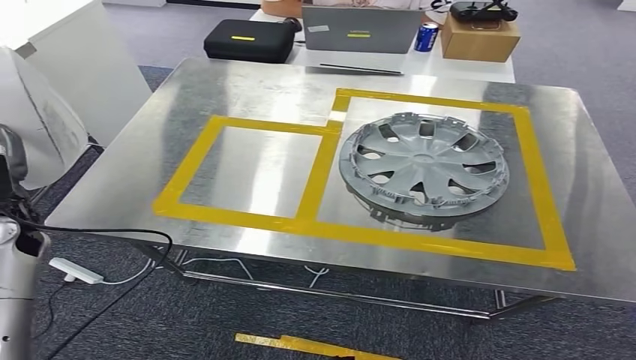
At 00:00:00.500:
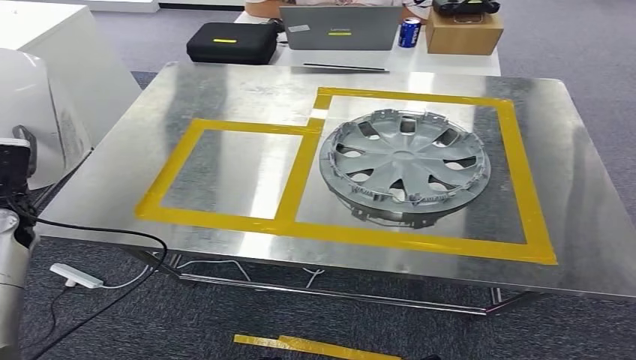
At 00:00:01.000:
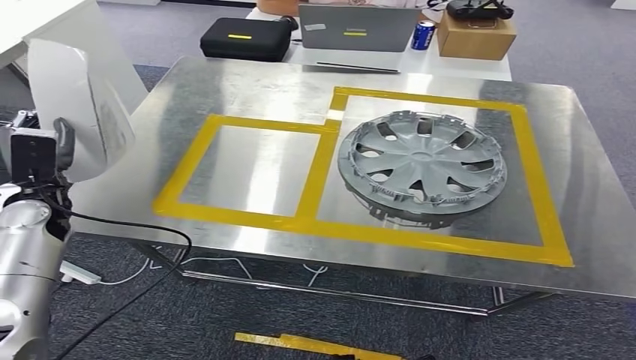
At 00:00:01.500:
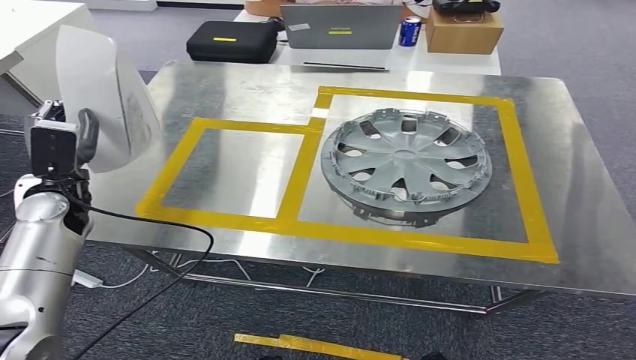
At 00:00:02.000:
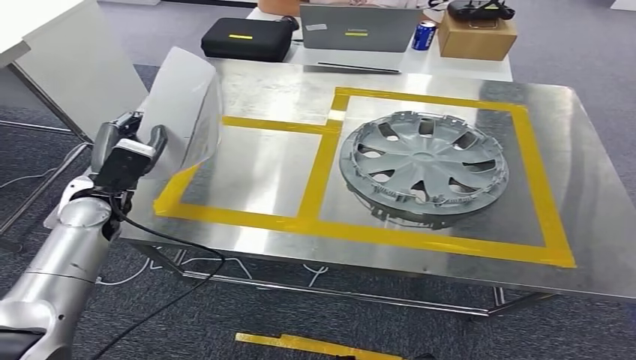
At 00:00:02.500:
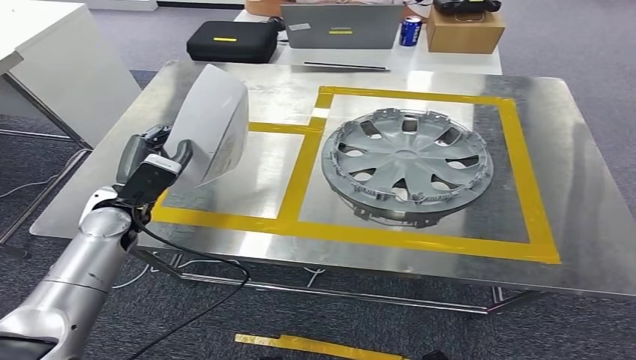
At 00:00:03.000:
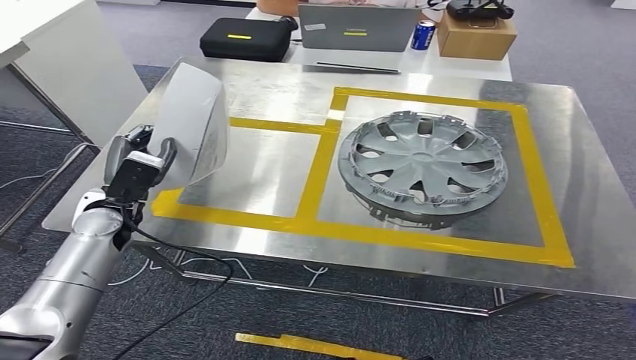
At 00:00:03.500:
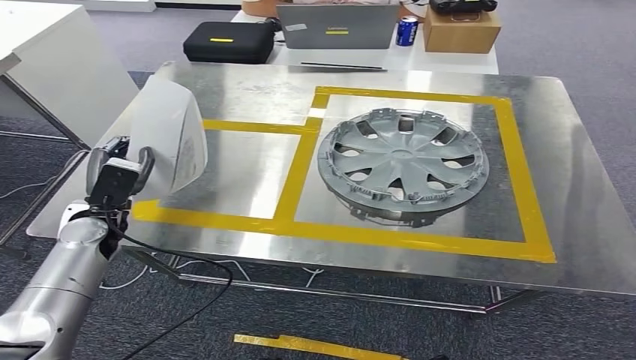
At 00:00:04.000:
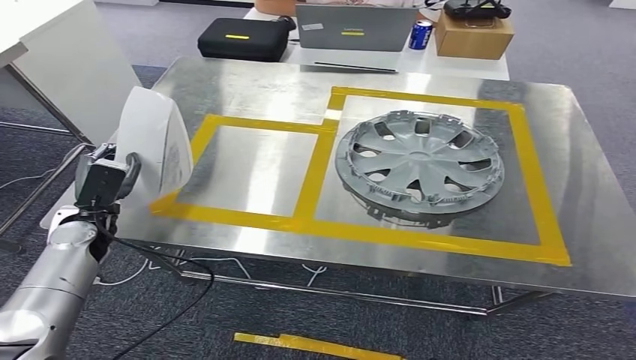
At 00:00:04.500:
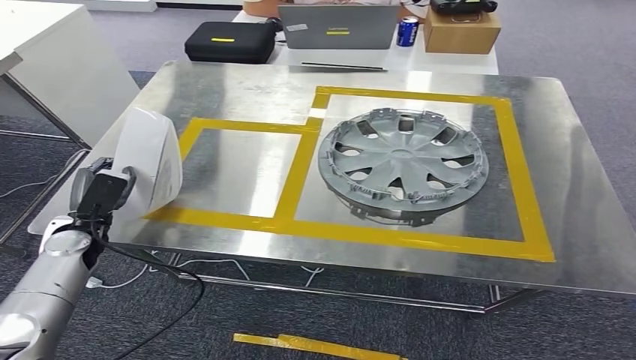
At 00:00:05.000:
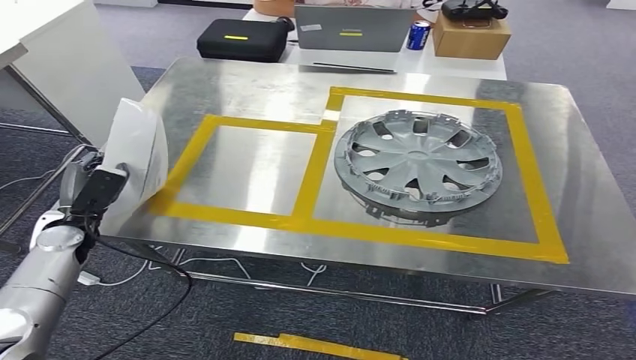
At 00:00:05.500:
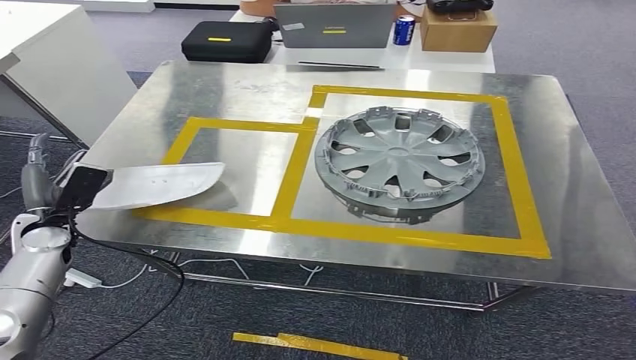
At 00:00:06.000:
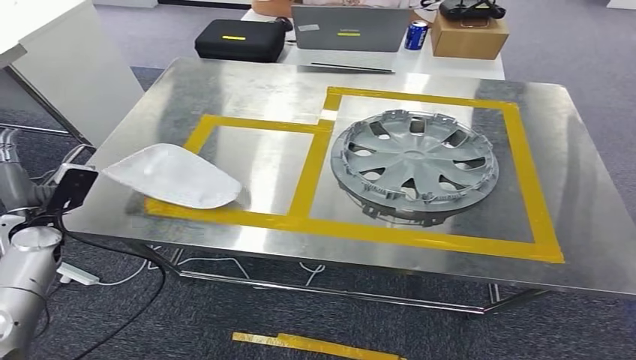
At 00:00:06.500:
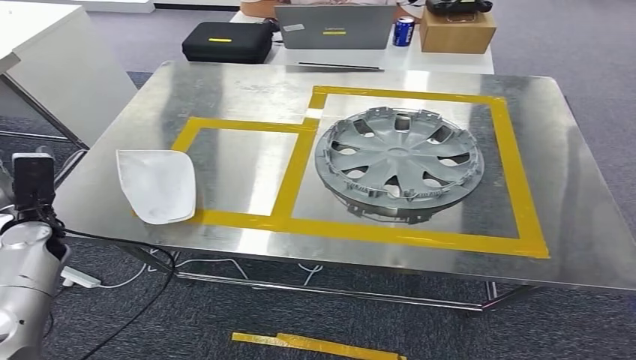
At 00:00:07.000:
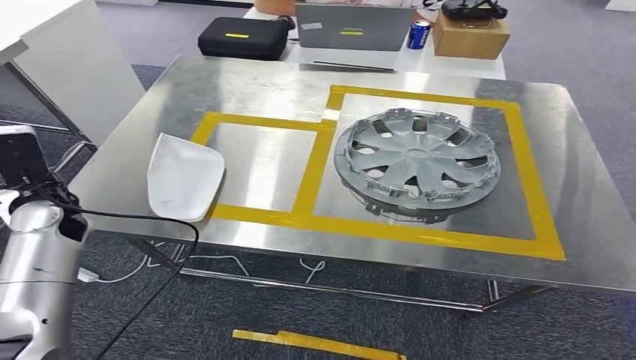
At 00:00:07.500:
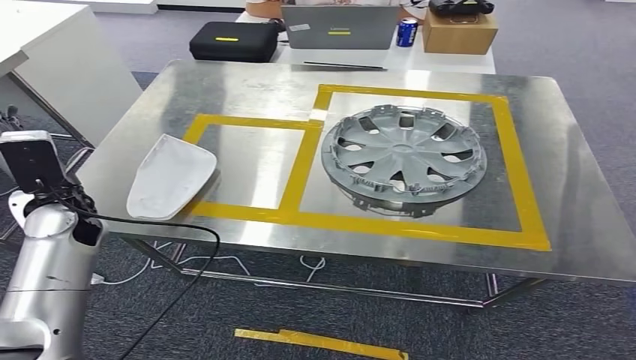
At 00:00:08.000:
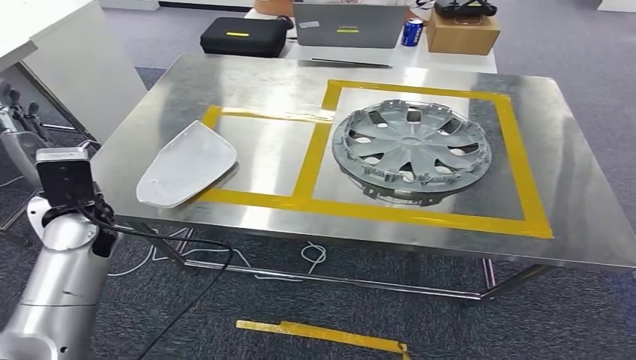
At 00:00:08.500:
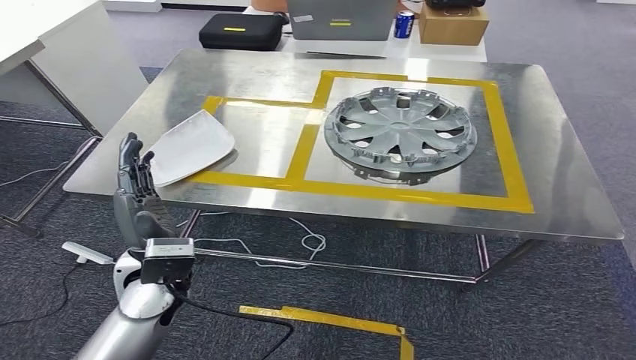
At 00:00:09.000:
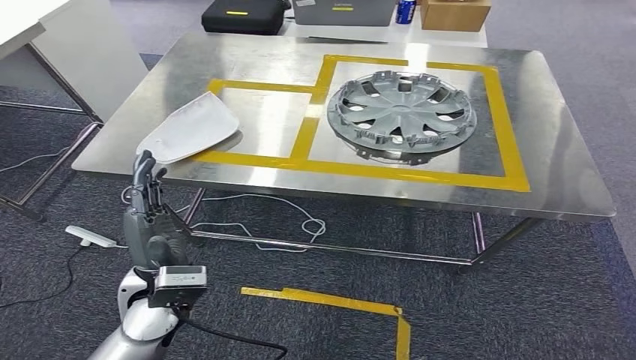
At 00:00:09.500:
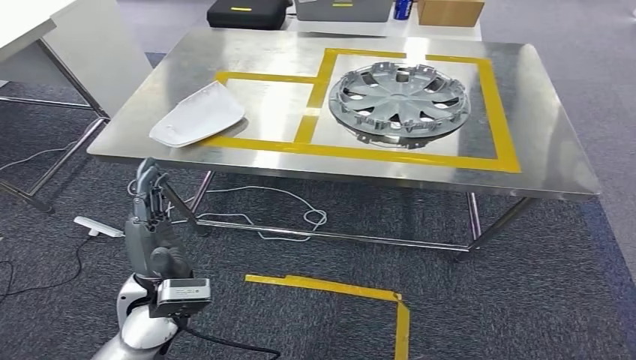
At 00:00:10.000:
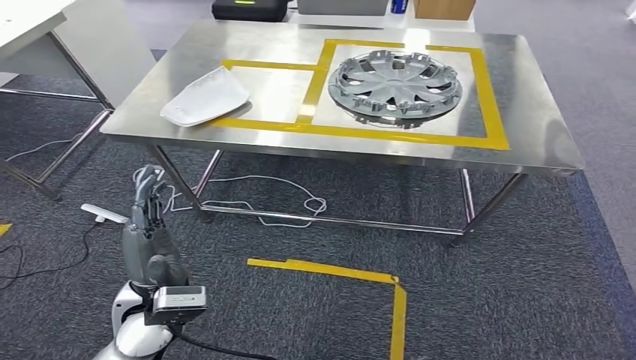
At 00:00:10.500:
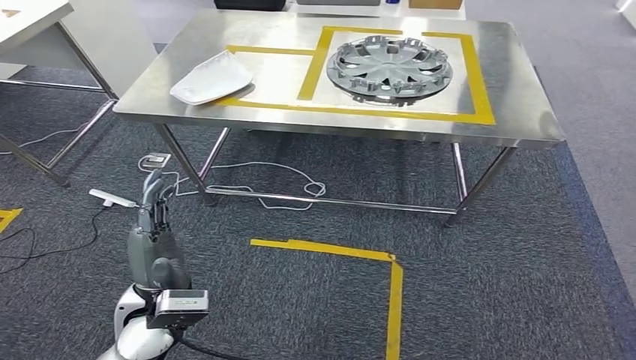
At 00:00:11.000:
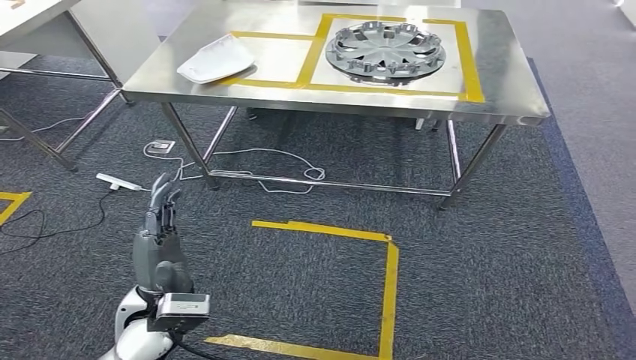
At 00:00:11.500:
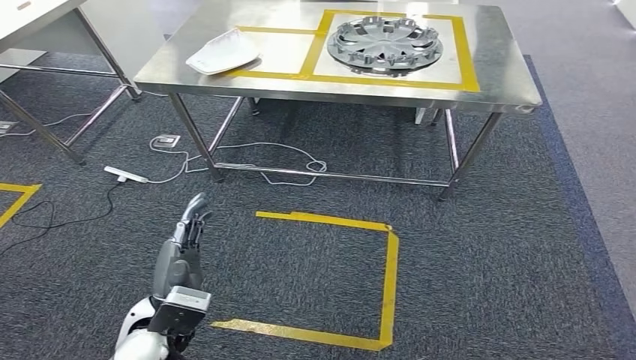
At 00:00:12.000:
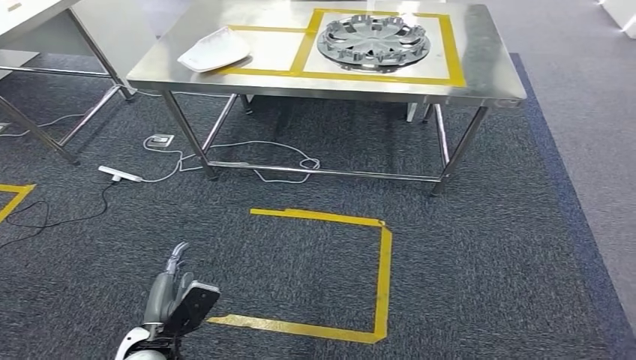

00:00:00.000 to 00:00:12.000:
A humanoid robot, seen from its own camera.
Step, 00:00:00.000 to 00:00:08.000: Insert the small component into the corresponding slot on the workbench.
00:00:02.000 to 00:00:04.000: The left hand goes approximately 5 cm downward.
00:00:04.000 to 00:00:06.000: The left hand shifts approximately 10 cm to the left.

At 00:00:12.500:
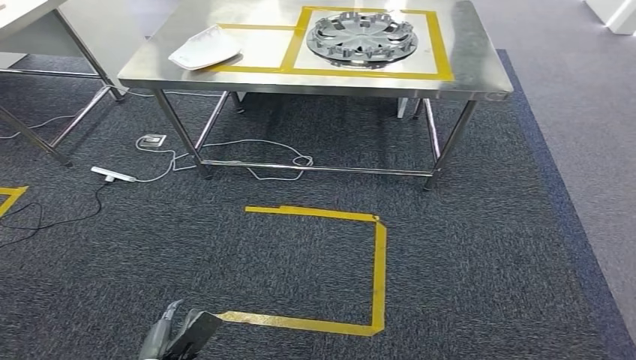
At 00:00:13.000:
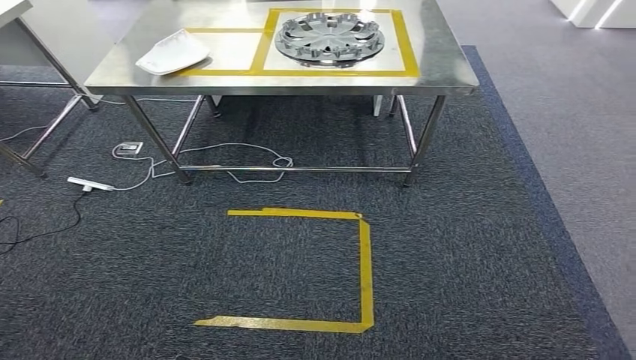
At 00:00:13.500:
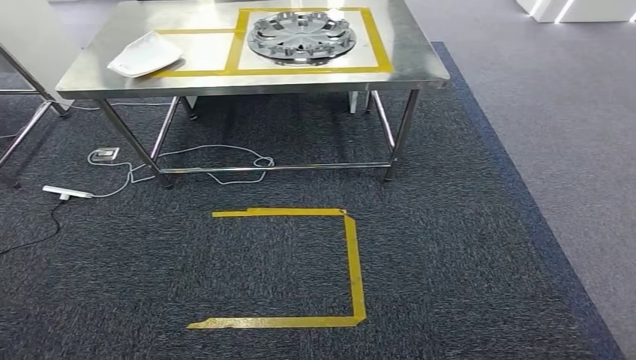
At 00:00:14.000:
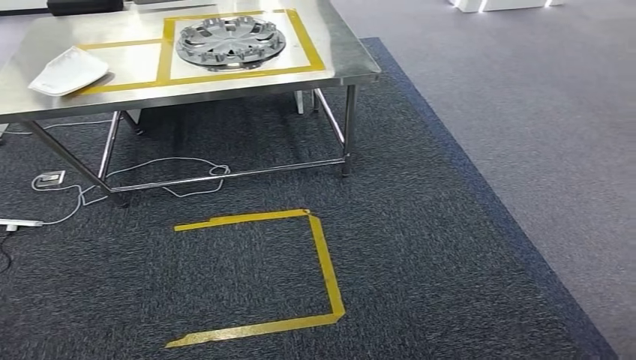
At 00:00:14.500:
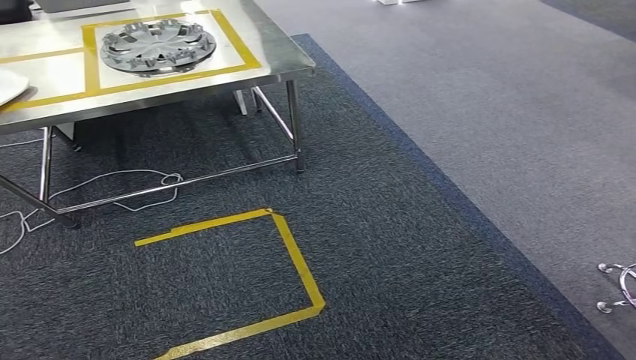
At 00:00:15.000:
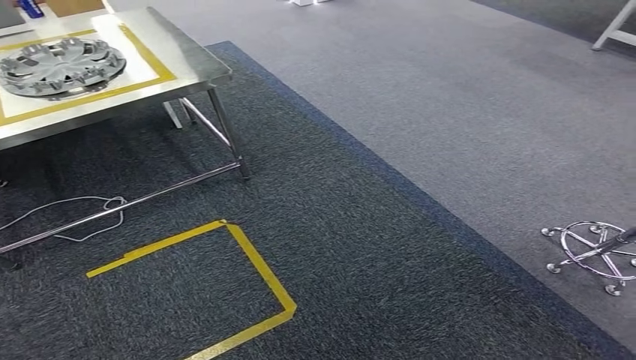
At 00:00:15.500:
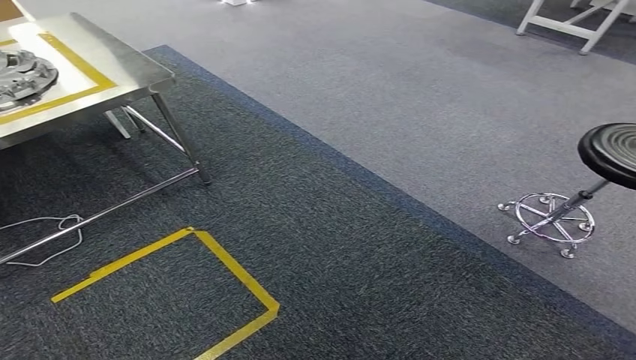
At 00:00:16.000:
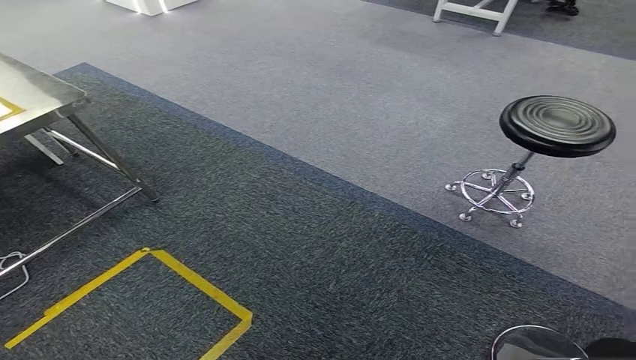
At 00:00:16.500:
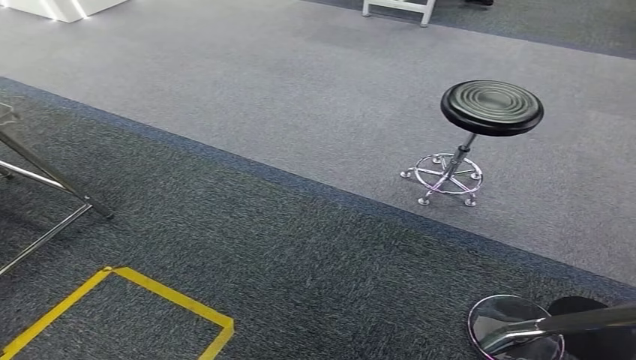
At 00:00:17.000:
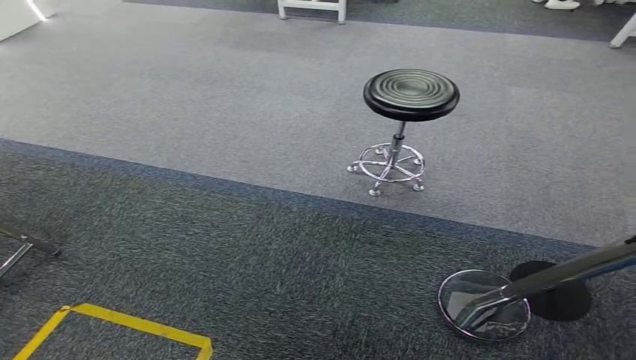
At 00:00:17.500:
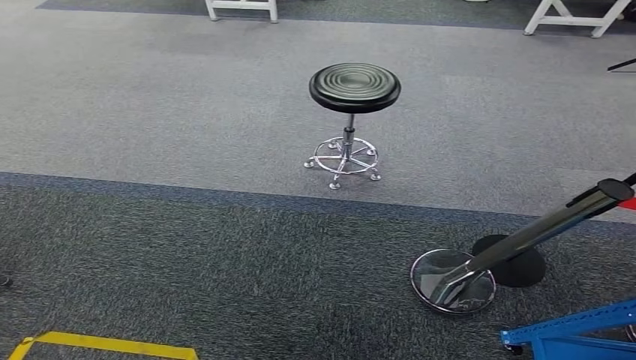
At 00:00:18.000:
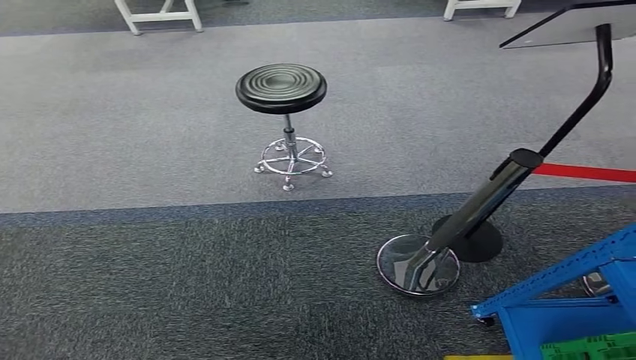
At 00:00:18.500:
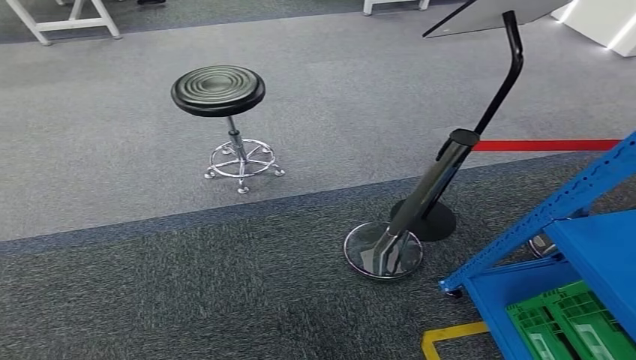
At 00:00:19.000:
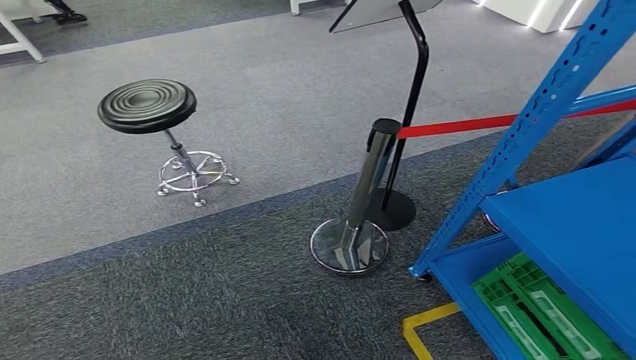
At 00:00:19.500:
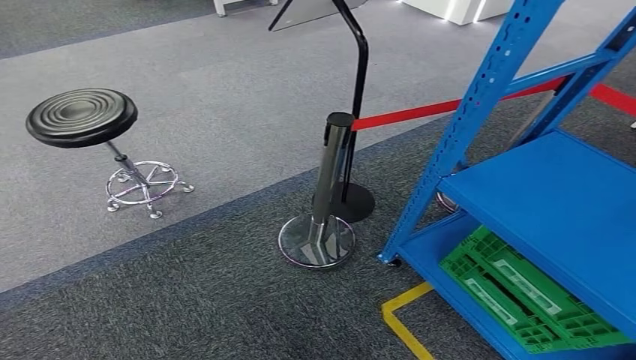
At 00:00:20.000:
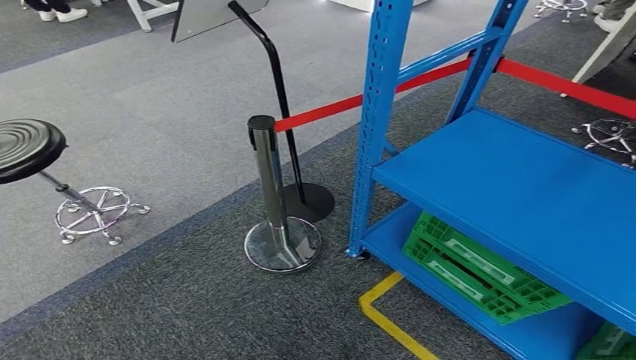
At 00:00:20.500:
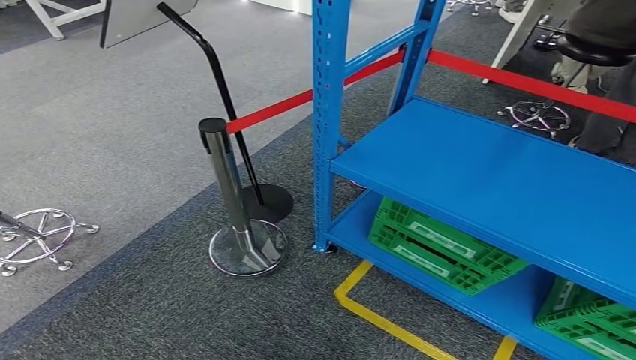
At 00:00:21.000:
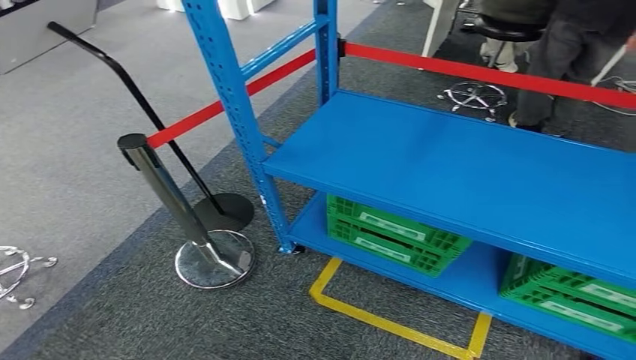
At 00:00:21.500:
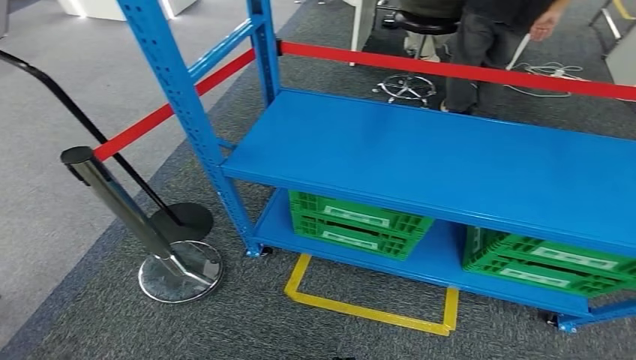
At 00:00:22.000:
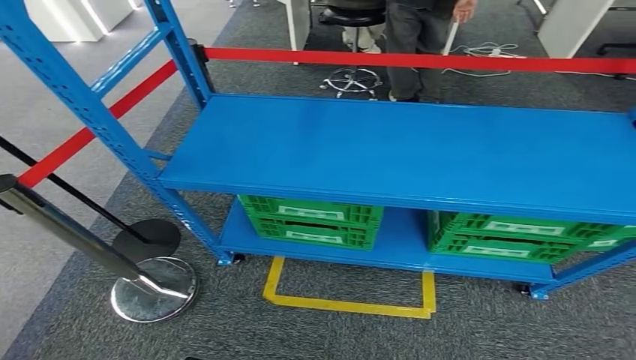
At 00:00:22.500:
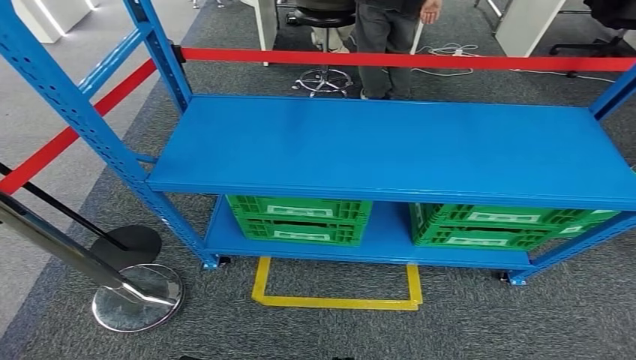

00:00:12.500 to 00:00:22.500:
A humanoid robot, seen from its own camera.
Step, 00:00:12.500 to 00:00:22.500: Return to the initial position at the workbench.
